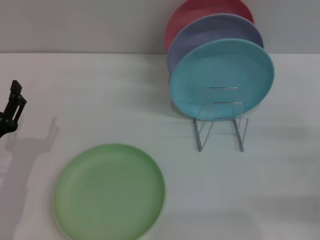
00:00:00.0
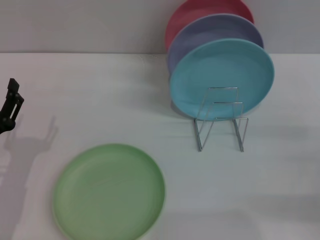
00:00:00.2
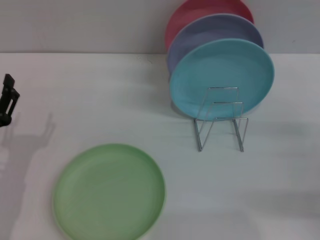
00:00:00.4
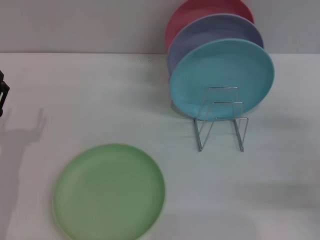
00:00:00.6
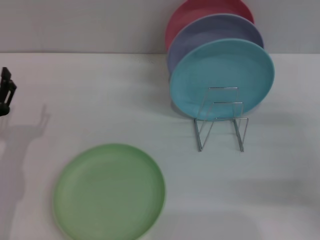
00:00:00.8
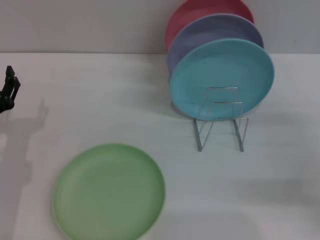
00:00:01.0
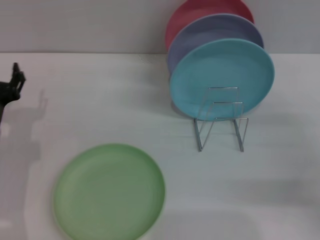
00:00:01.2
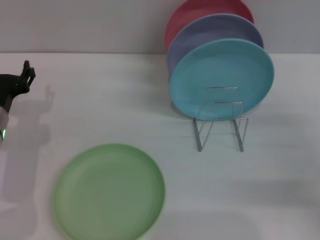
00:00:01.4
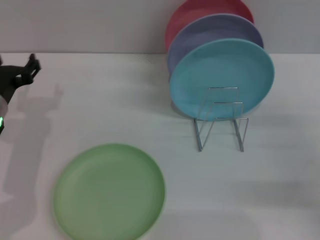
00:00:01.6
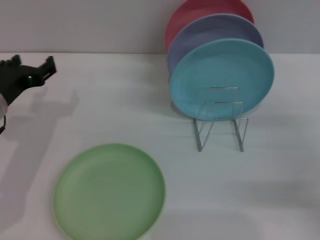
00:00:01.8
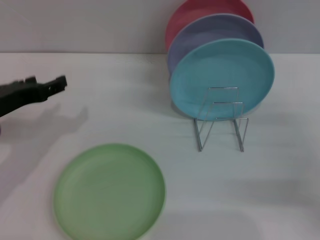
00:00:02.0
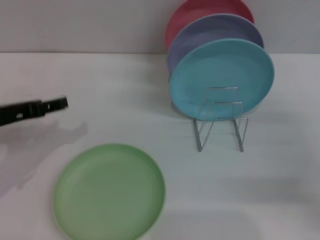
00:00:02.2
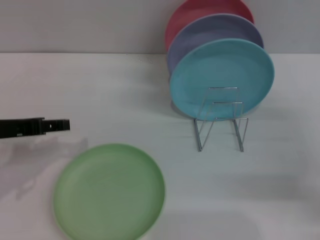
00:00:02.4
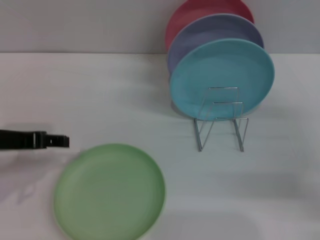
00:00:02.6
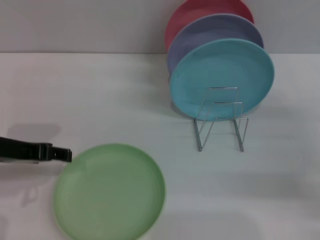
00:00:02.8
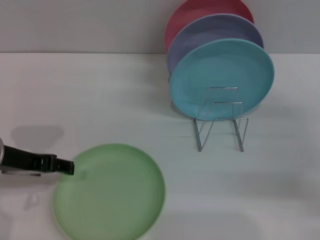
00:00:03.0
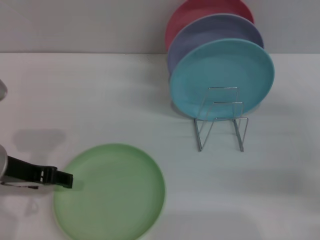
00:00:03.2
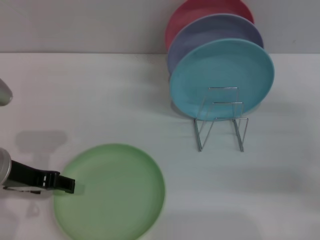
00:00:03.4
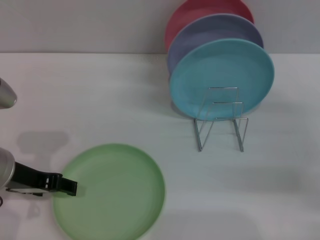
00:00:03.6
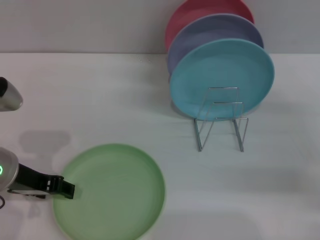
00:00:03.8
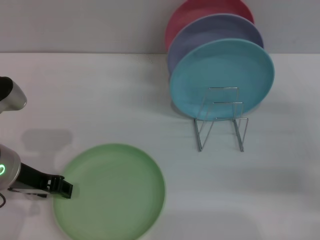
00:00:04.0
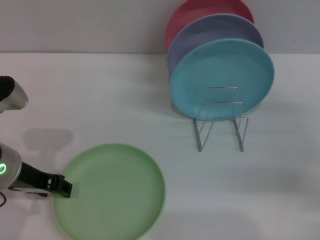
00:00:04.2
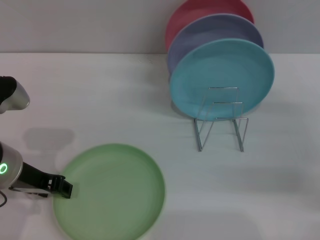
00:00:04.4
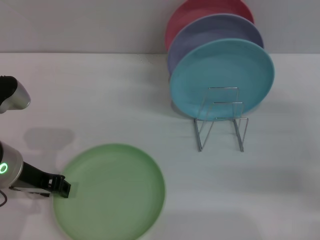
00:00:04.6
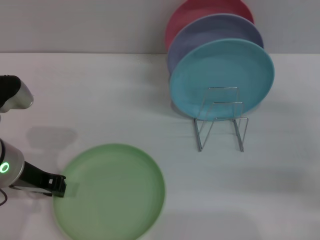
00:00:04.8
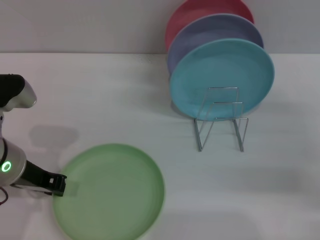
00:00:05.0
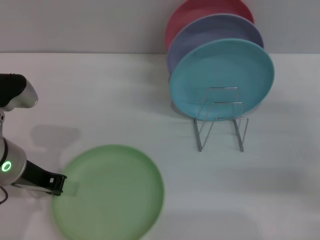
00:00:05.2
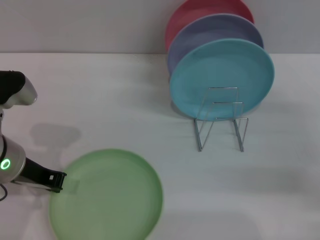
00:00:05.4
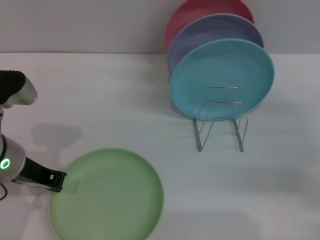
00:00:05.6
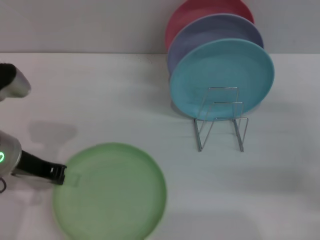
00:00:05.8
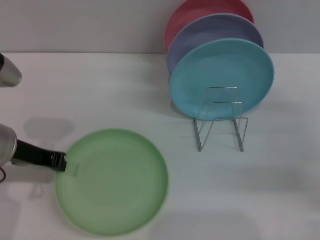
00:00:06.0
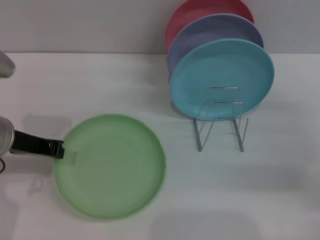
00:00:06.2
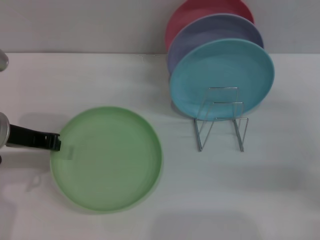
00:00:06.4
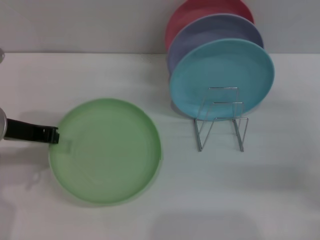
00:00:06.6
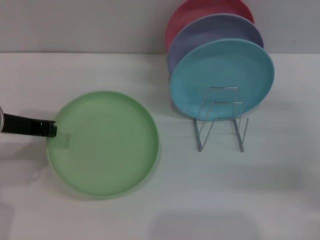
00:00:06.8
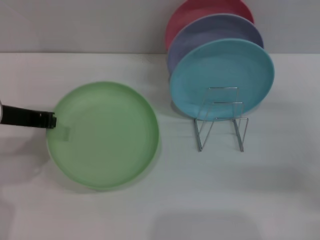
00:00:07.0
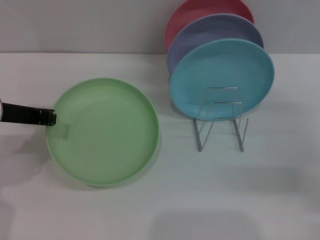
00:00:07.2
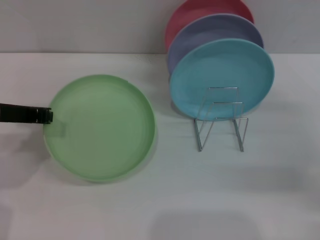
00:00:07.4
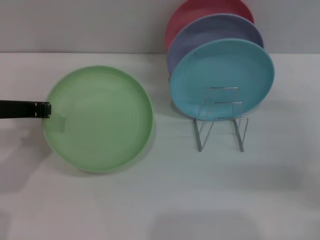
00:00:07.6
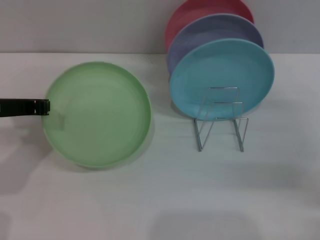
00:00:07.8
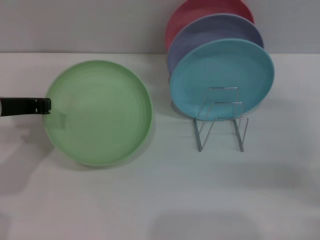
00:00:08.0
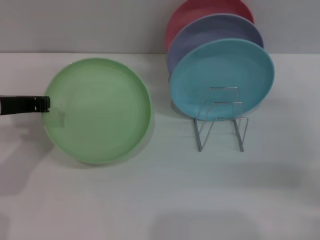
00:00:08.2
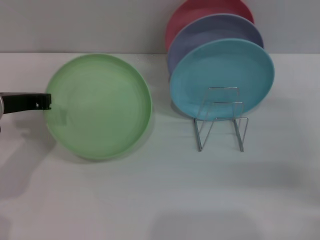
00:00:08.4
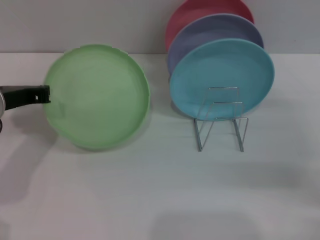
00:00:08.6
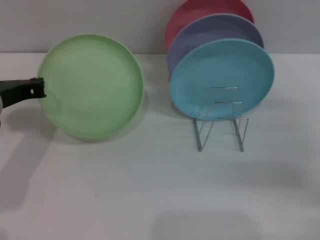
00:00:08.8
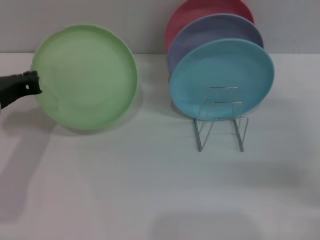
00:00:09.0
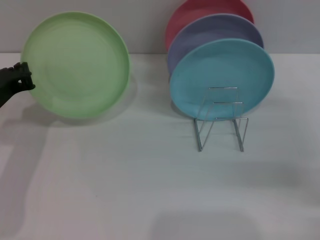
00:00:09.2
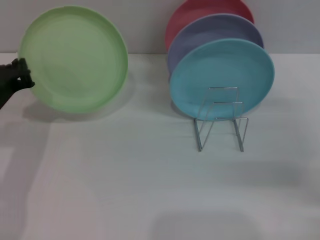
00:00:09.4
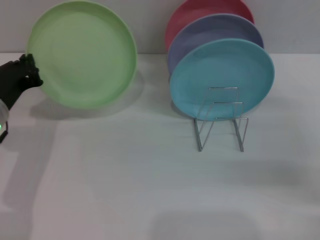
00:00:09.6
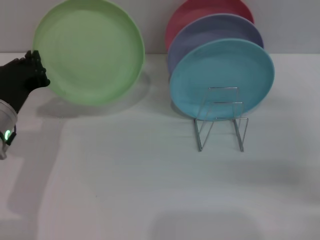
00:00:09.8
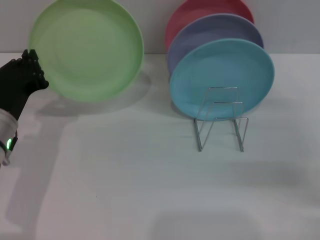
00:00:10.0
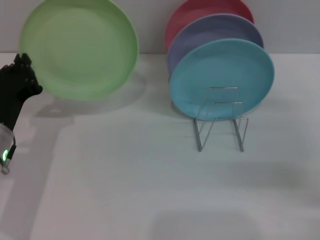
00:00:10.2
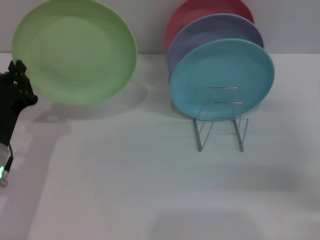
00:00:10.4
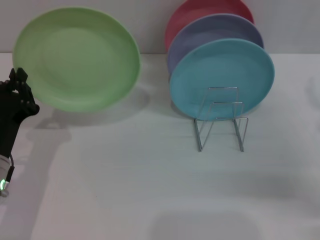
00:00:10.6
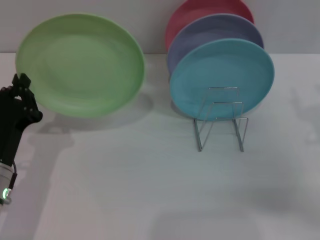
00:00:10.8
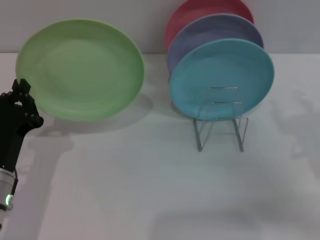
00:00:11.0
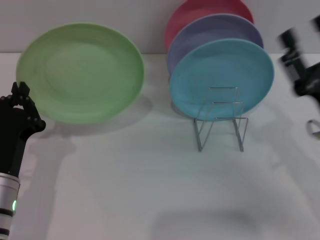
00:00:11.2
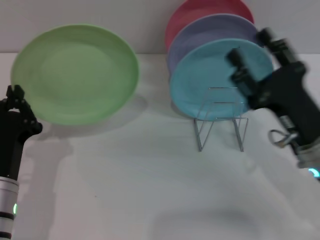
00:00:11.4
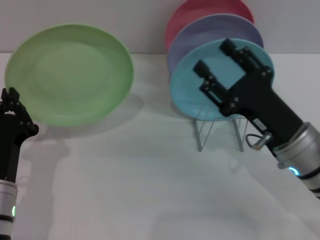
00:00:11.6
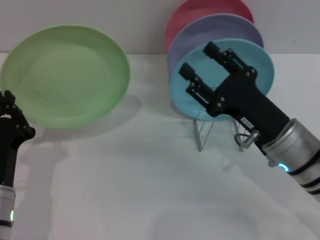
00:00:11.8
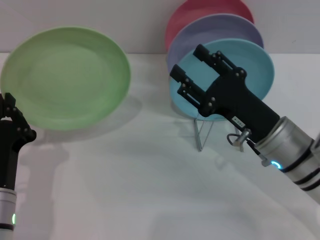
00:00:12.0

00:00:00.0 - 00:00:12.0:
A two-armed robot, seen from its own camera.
Task of the whole recording: Grip the plate with one hand, pass it to the other, then set it on the shelf.
Step, 00:00:00.0 - 00:00:06.0: Pick up the plate with the left gripper.
00:00:00.0 - 00:00:01.6: The left gripper goes roughly 10 cm forward and upward.
00:00:01.6 - 00:00:03.0: The left gripper is displaced upward and backward by about 10 cm.
00:00:03.0 - 00:00:04.4: The left gripper closes its fingers.
00:00:04.4 - 00:00:06.0: The left gripper closes up.
00:00:09.0 - 00:00:10.4: The left gripper moves downward and backward, approximately 10 cm.
00:00:10.4 - 00:00:12.0: The left gripper is displaced backward by about 5 cm, while the right gripper moves to the left, approximately 15 cm.

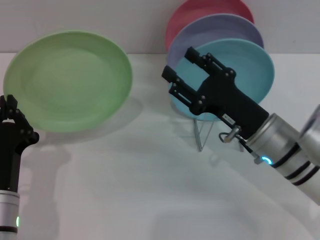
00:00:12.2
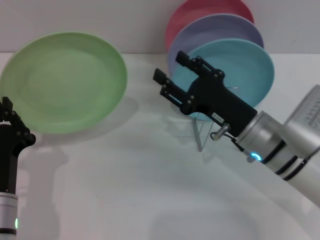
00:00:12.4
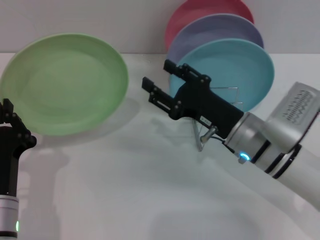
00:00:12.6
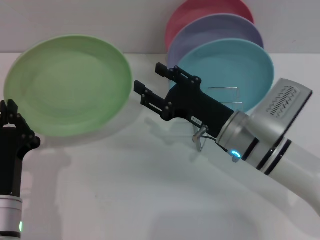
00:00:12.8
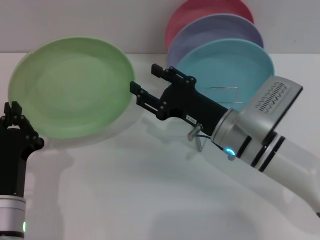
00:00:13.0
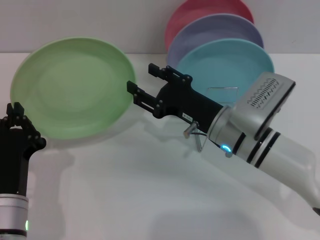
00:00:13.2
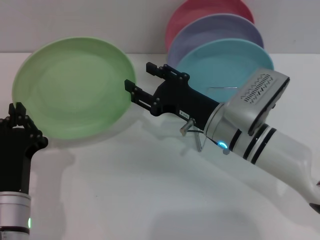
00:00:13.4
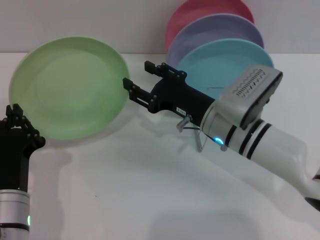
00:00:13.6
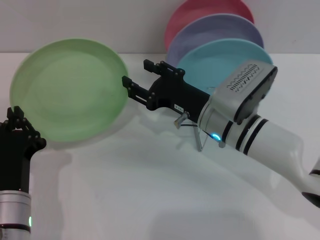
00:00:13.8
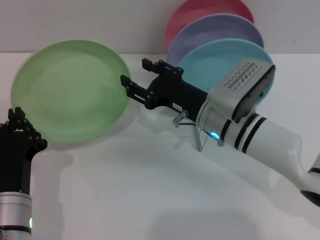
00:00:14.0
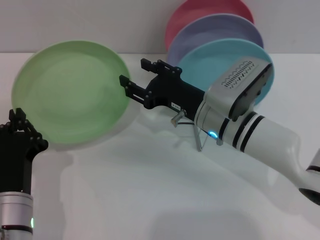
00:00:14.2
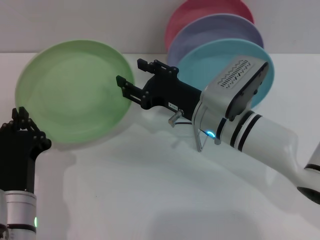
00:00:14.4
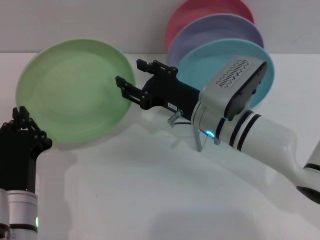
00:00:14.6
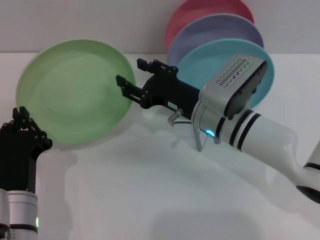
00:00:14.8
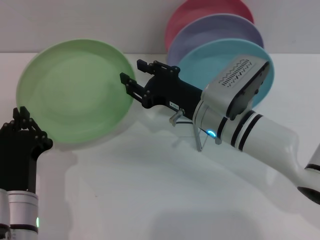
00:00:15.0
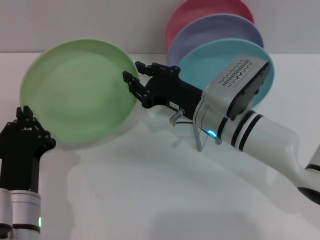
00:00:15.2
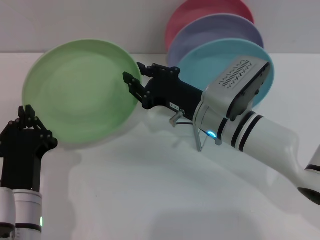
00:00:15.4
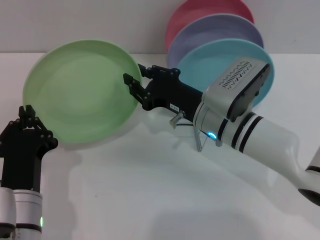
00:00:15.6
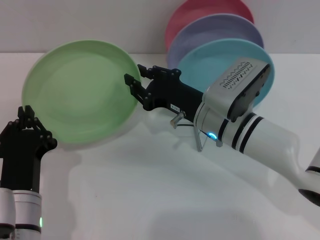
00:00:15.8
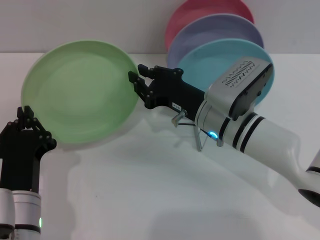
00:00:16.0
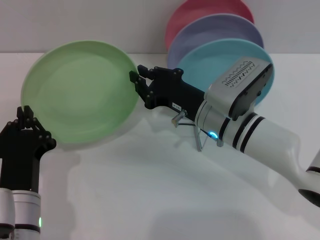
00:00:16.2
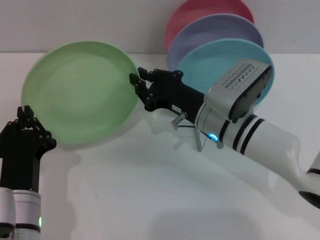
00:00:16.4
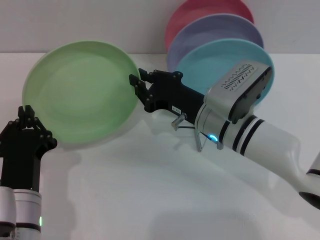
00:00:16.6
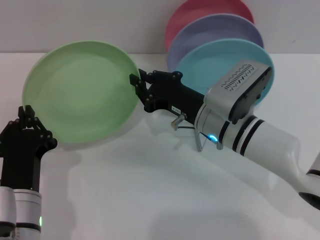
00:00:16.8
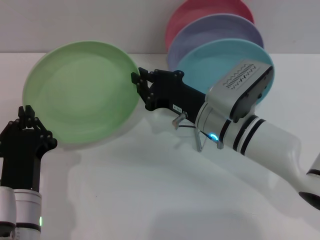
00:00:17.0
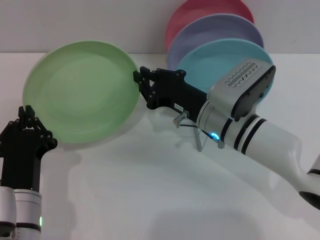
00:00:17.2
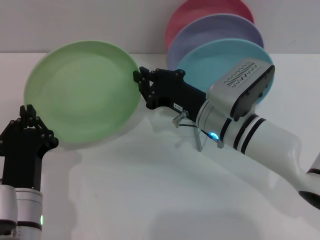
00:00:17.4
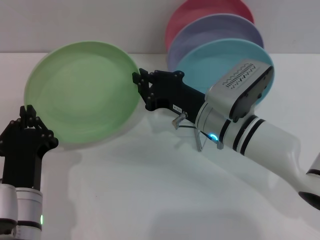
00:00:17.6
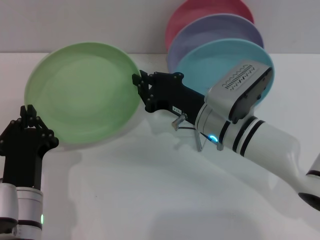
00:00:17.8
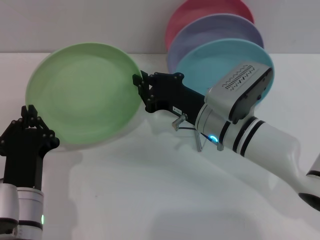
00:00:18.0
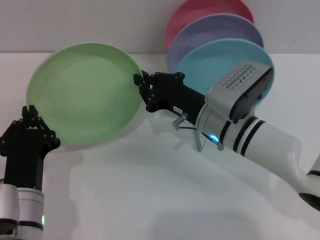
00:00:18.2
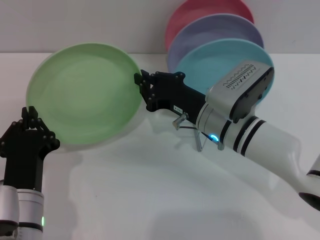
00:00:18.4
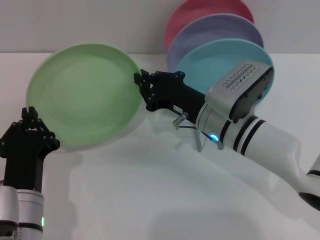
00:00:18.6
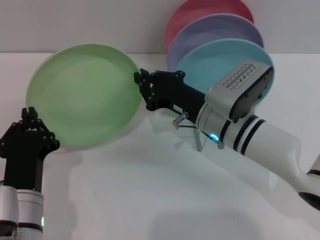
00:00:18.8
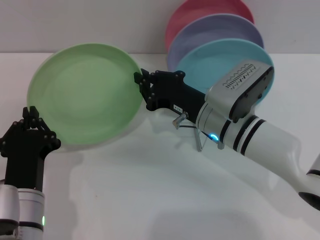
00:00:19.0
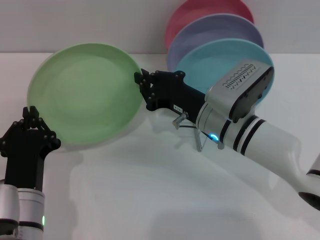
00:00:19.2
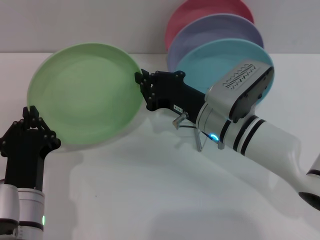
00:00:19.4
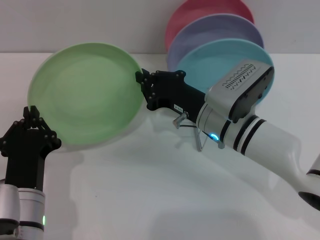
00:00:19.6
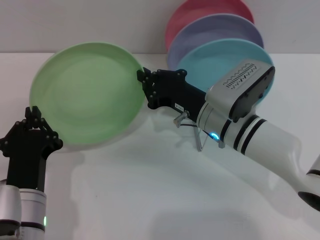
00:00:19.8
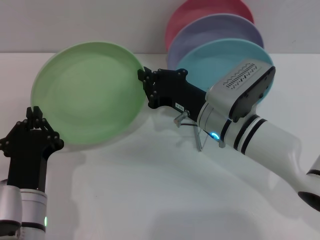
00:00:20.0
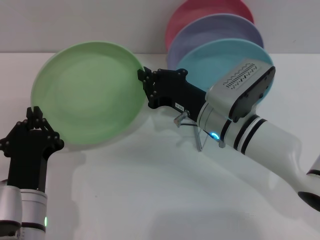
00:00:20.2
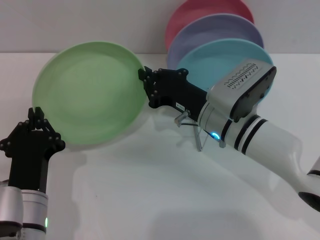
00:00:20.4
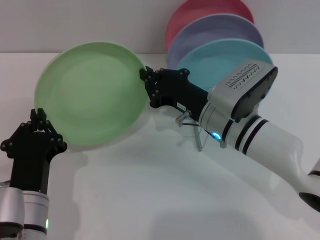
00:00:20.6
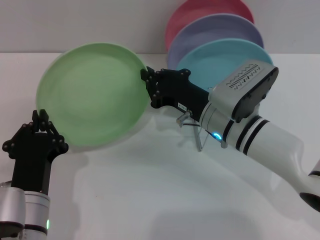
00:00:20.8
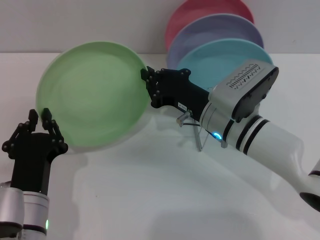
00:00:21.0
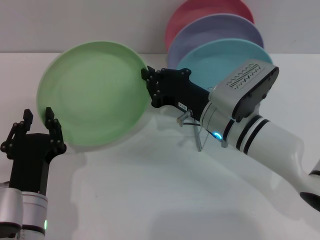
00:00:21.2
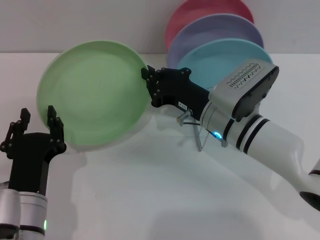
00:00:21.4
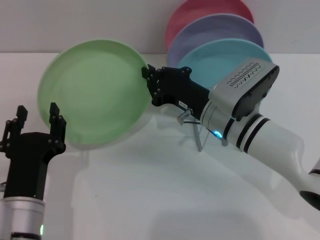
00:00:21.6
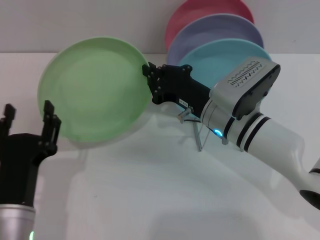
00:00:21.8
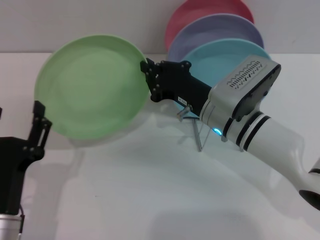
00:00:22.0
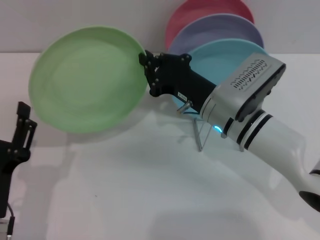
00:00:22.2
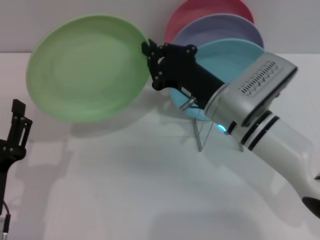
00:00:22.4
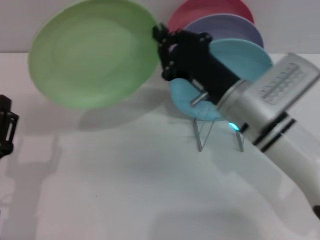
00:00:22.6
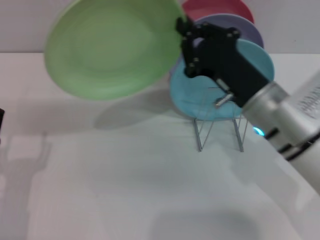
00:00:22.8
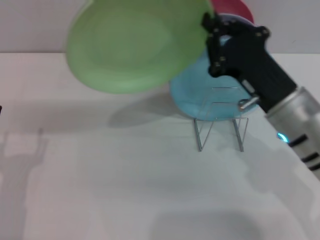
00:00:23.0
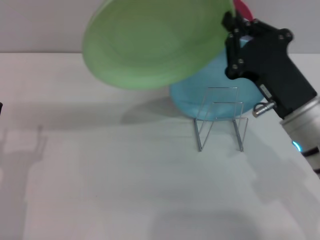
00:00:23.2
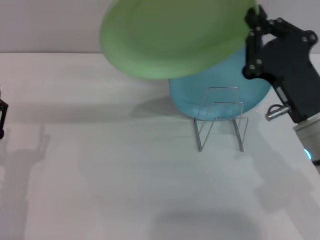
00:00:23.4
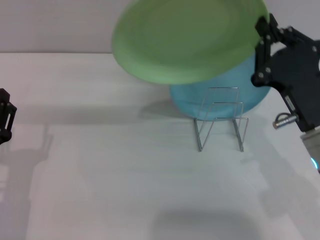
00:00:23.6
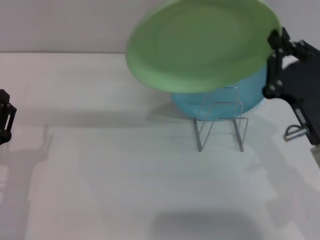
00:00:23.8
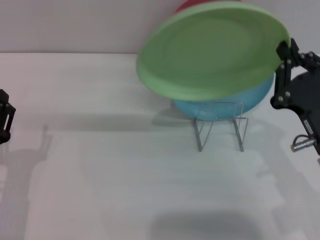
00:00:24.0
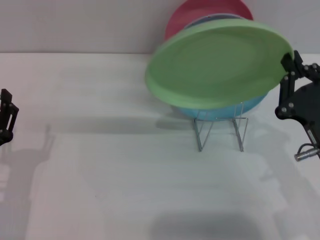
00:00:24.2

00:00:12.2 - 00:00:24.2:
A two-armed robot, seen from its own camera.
Task of the whole recording: Grip the plate with one hand, pass it to the other, then set it on the shelf.
Step, 00:00:12.2 - 00:00:22.0: Pass the plate from the left gripper to the right gripper.
00:00:12.2 - 00:00:13.8: The right gripper goes some 5 cm to the left.
00:00:13.8 - 00:00:15.2: The grippers move only a little.
00:00:15.2 - 00:00:16.6: The right gripper closes up.
00:00:16.6 - 00:00:21.2: Both grippers stay put.
00:00:21.2 - 00:00:22.6: The left gripper goes approximately 5 cm to the left, and opens its fingers.
00:00:22.6 - 00:00:24.2: The right gripper goes roughly 15 cm backward and to the right.
